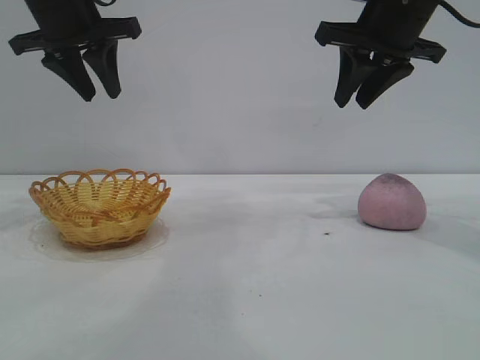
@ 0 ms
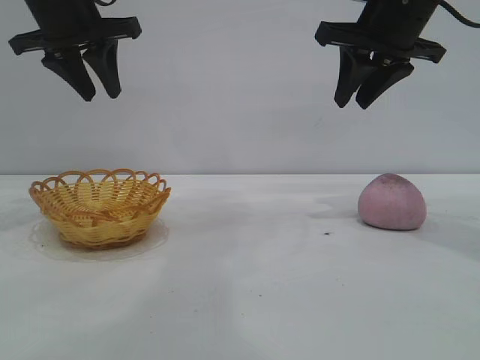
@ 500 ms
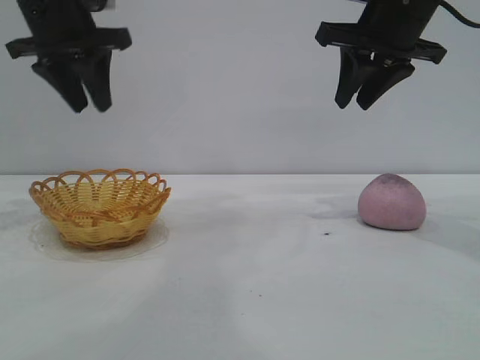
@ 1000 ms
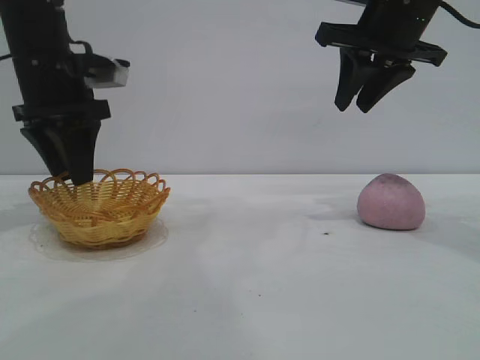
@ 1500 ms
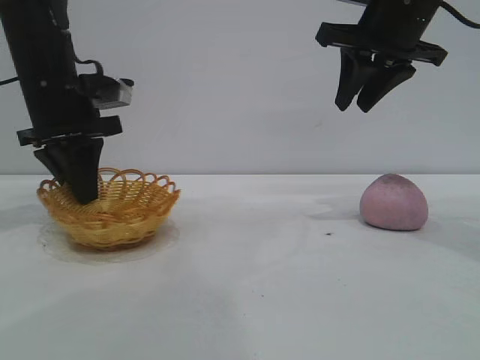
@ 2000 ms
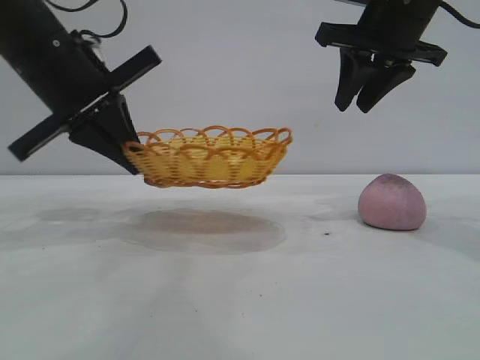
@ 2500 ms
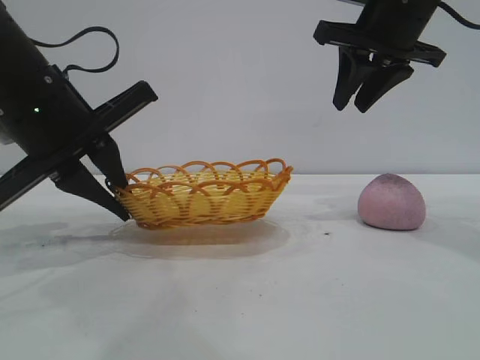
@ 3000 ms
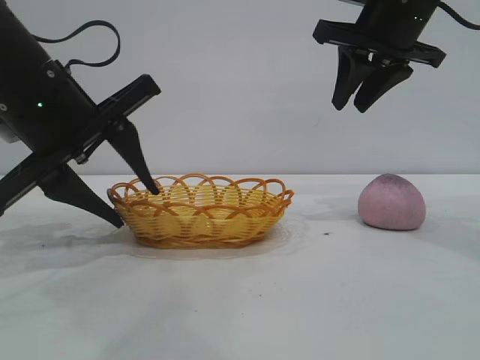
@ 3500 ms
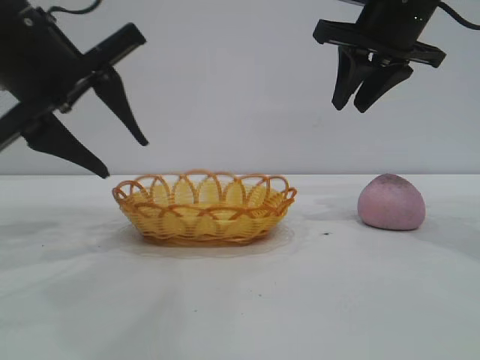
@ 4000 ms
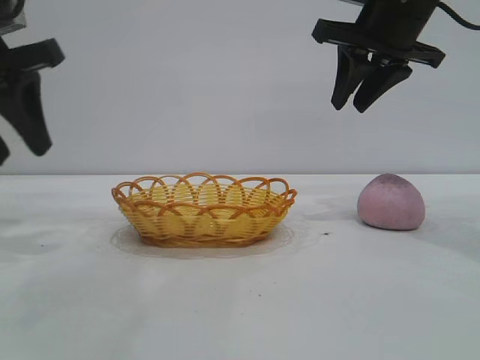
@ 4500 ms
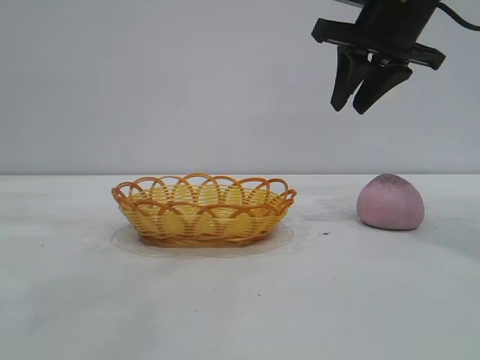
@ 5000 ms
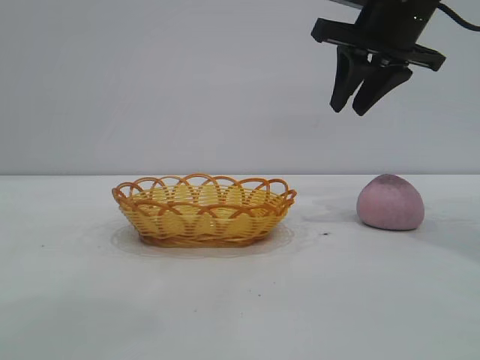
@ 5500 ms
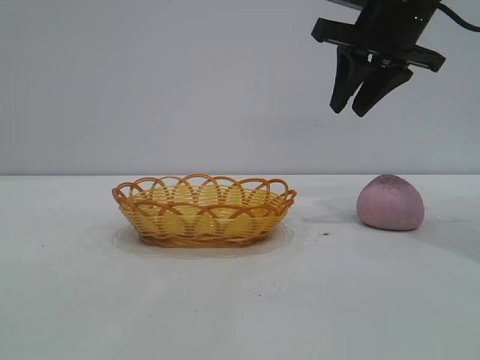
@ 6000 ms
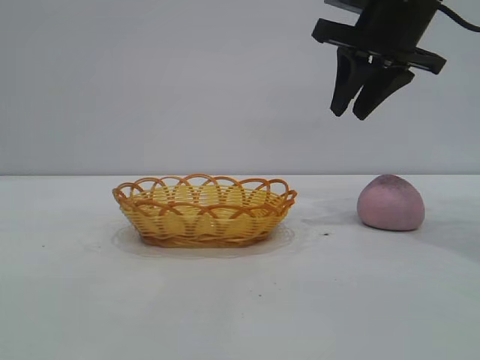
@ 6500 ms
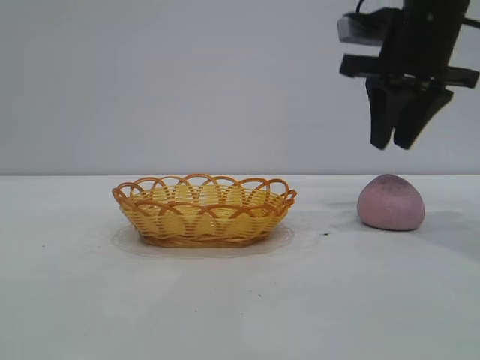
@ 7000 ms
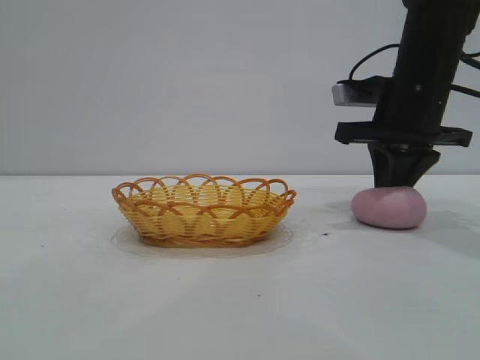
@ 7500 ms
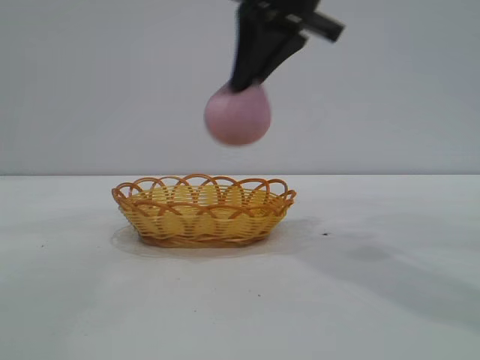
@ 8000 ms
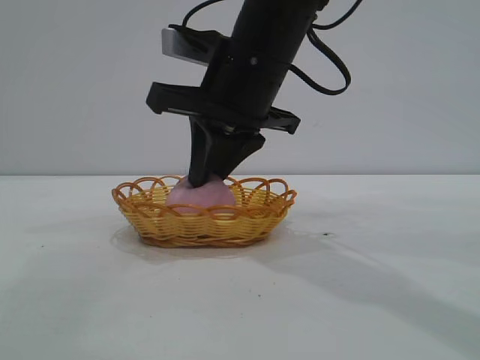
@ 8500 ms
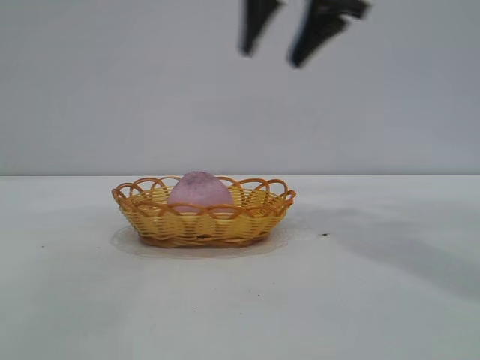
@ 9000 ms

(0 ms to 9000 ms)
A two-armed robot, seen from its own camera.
Task of the whole recording: pick up the peach and put it into the basket.
Step, 0 ms - 4000 ms: Move the basket to the center of view.
Step, 4500 ms - 7500 ms: Pick up the peach.
Step, 8000 ms - 8500 ms: place the peach into the basket.

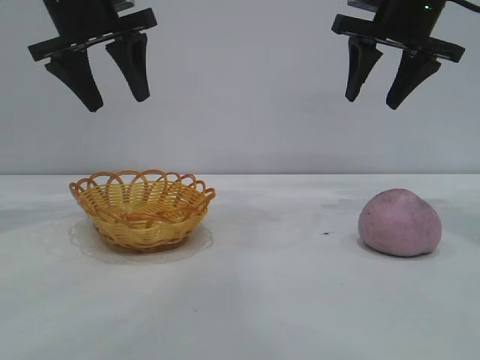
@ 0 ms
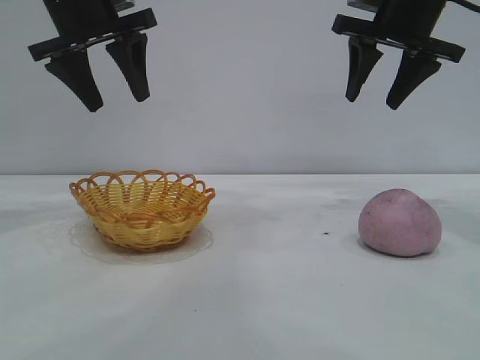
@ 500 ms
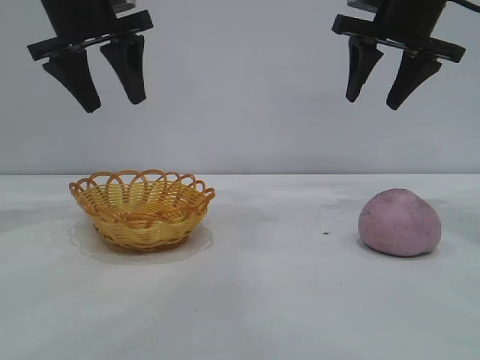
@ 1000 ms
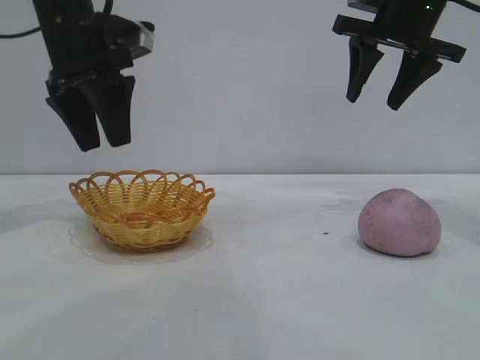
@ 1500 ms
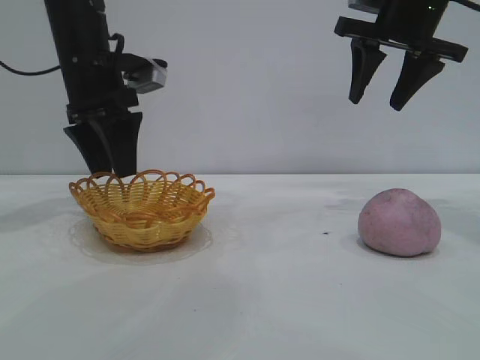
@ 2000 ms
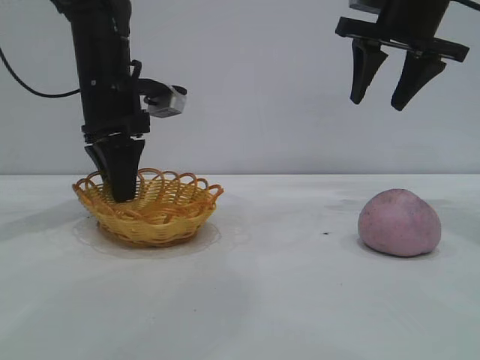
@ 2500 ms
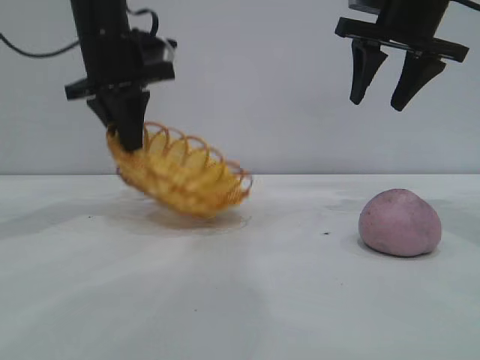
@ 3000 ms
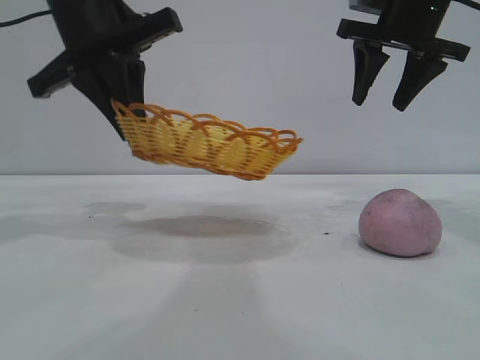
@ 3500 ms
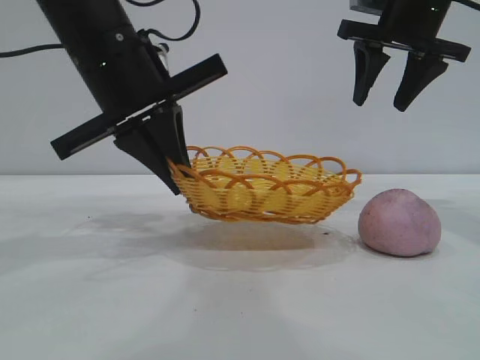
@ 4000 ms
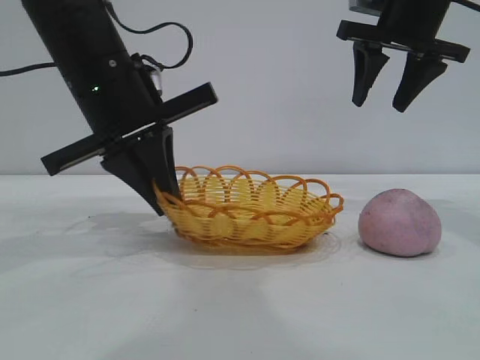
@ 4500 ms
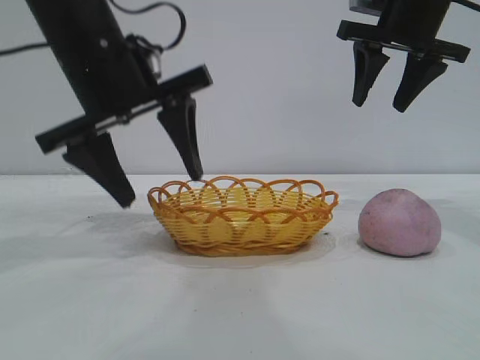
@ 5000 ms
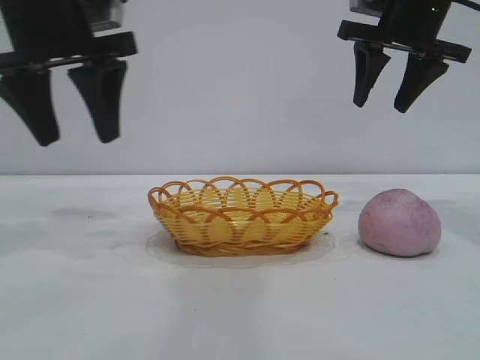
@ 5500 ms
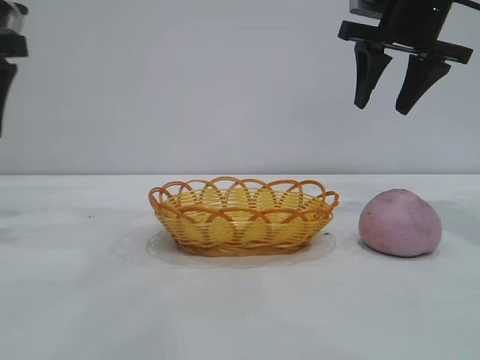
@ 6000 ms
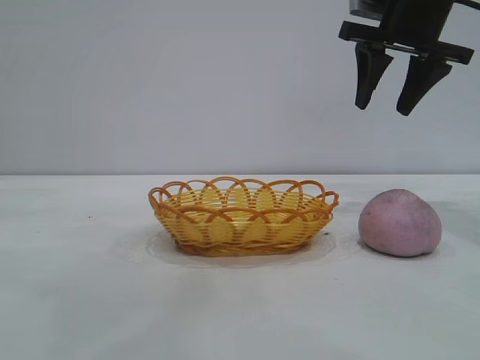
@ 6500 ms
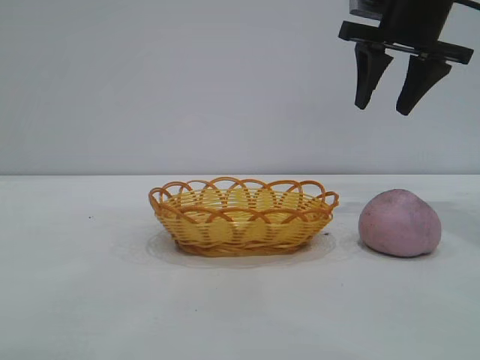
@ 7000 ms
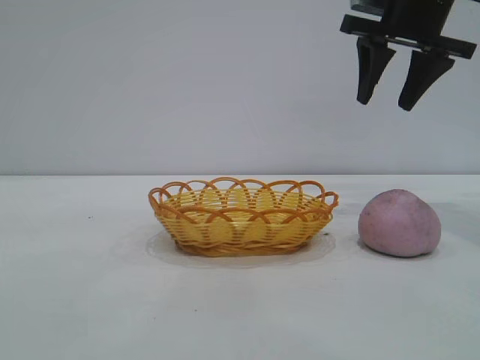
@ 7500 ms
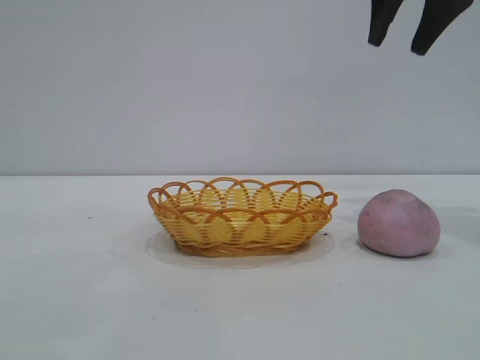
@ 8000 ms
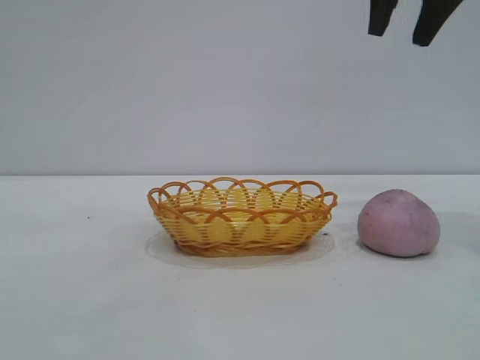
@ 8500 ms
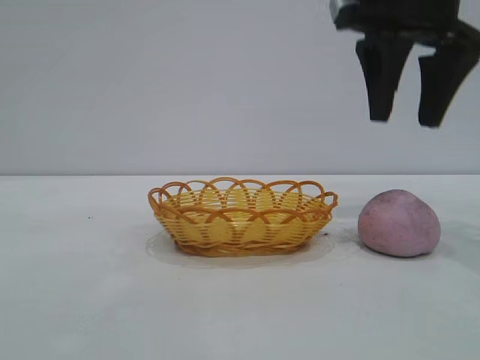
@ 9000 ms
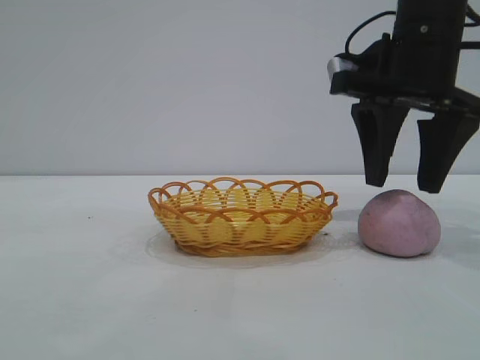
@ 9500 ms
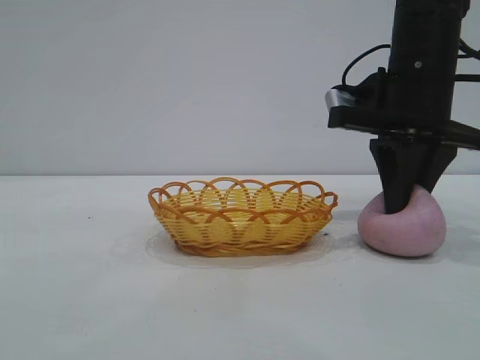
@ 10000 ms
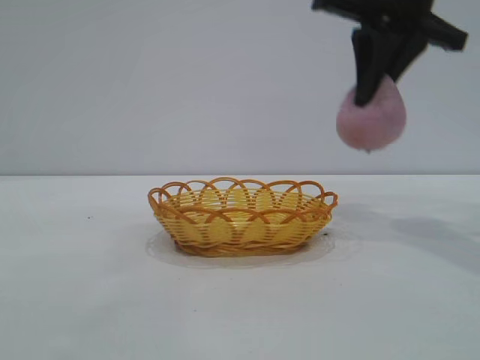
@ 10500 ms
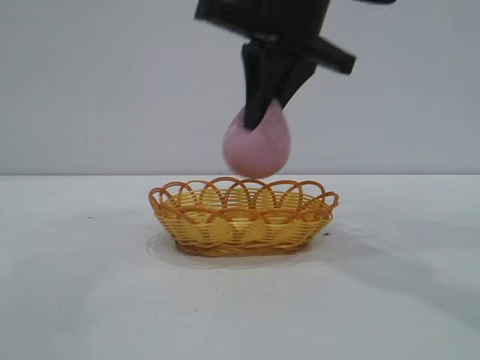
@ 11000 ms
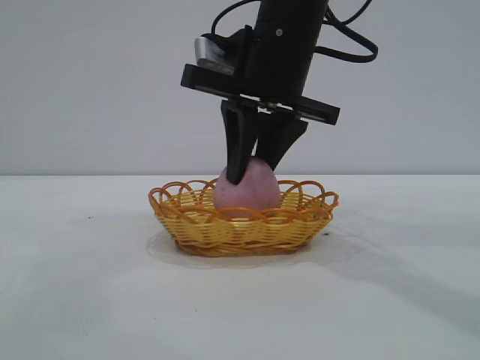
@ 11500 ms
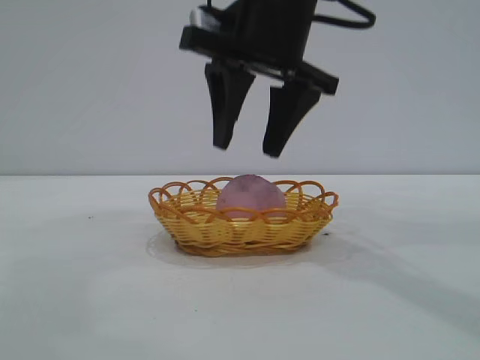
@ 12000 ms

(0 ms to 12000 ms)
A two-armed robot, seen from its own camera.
Task of the whole recording: pick up the peach and put it into the basket.
Step, 0 ms - 5000 ms: Move the basket to the center of view.
Step, 5500 ms - 10000 ms: Pick up the peach.

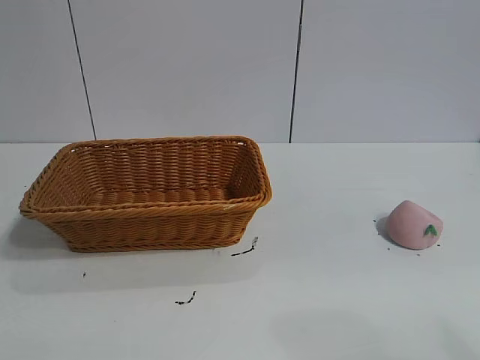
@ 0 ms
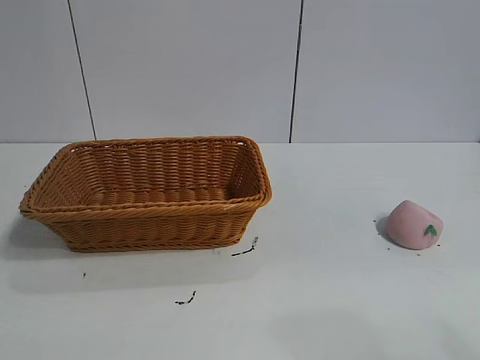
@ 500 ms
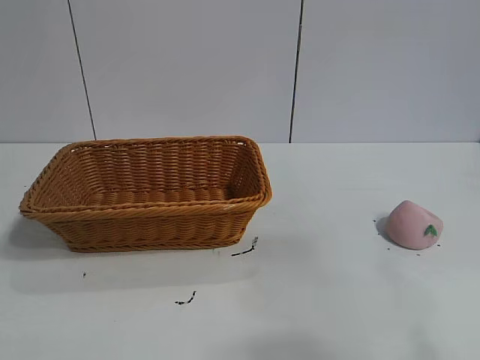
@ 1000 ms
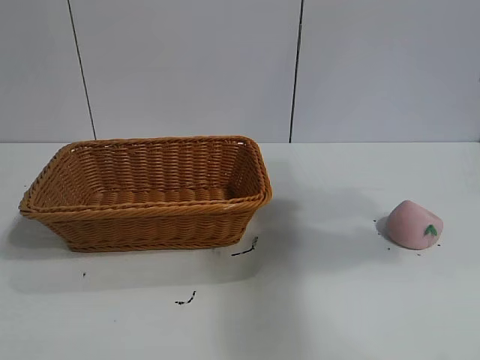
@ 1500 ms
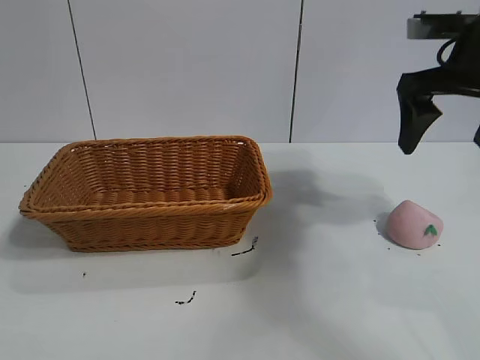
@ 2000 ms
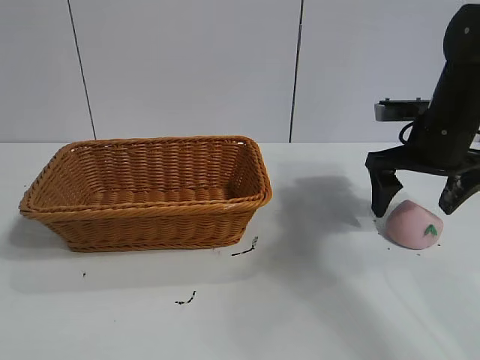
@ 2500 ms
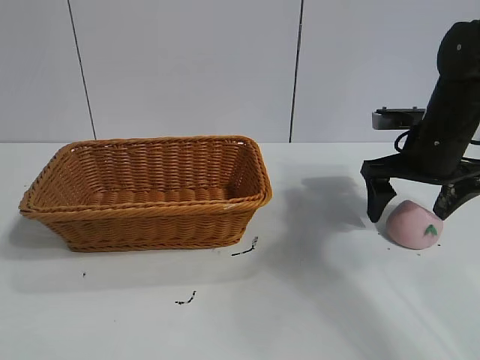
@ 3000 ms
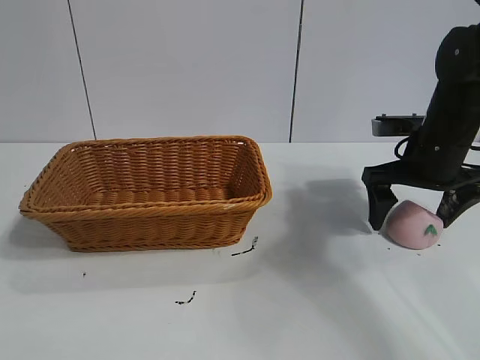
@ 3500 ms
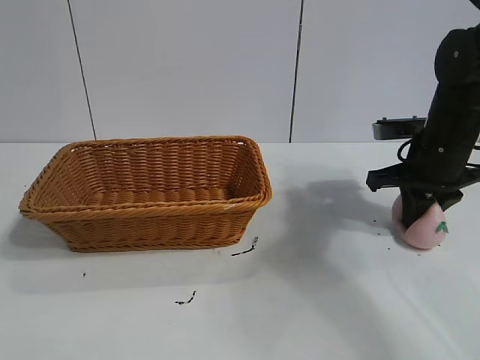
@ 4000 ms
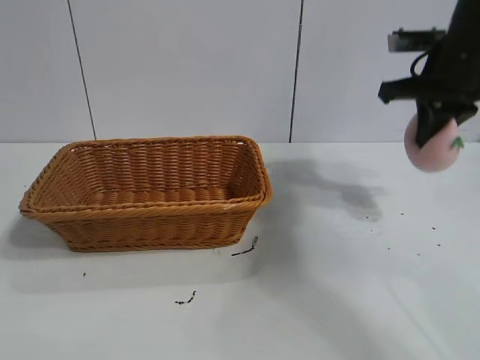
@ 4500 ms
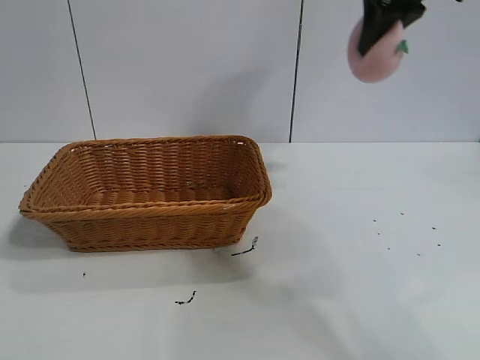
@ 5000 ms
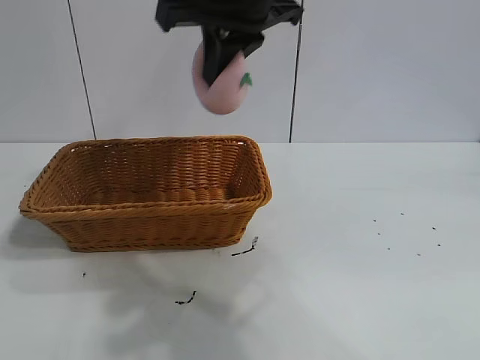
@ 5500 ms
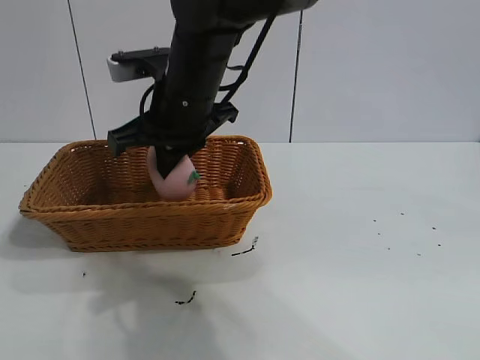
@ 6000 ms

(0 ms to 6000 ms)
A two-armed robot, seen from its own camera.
Task of the whole recording: pick up the peach and put it into the basket.
Step, 1000 ms - 4000 ms: Grasp the peach with right gripper.
